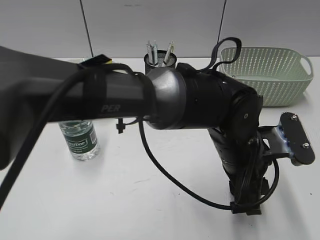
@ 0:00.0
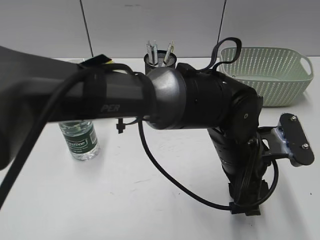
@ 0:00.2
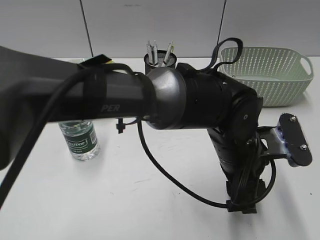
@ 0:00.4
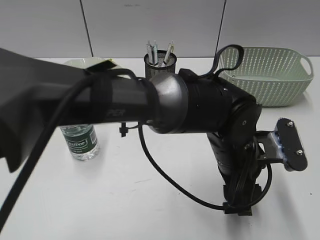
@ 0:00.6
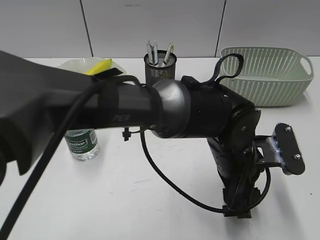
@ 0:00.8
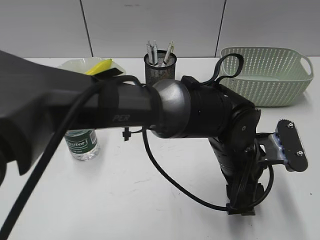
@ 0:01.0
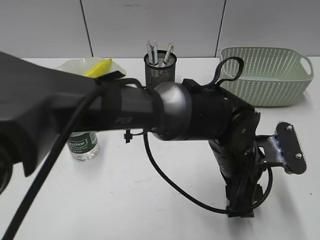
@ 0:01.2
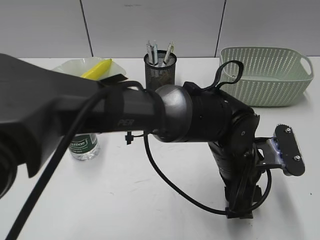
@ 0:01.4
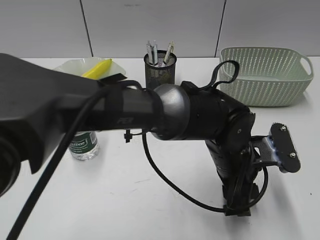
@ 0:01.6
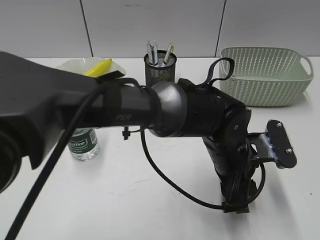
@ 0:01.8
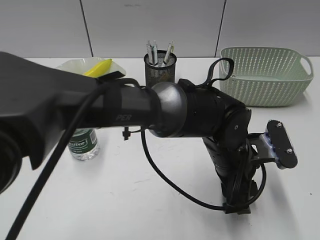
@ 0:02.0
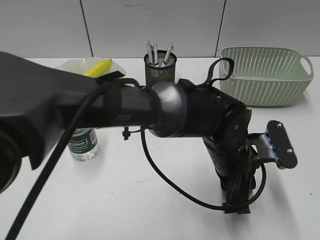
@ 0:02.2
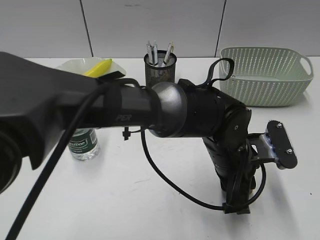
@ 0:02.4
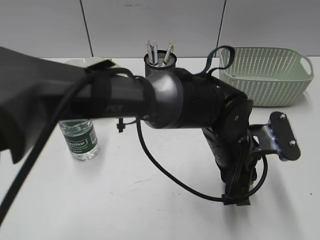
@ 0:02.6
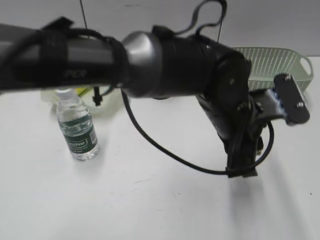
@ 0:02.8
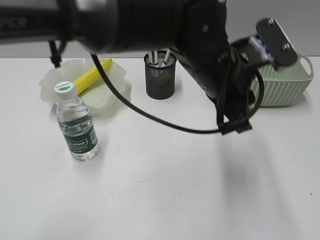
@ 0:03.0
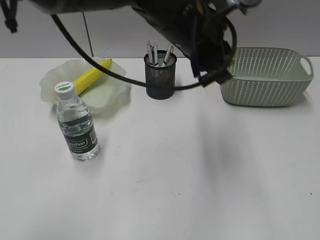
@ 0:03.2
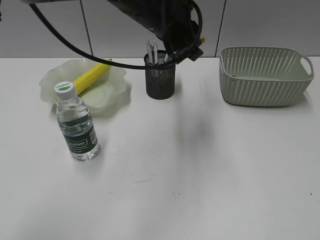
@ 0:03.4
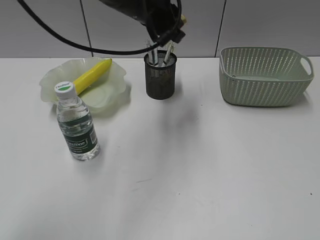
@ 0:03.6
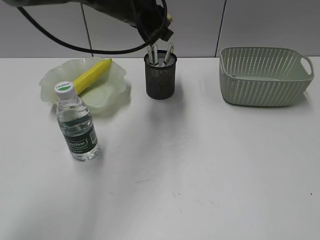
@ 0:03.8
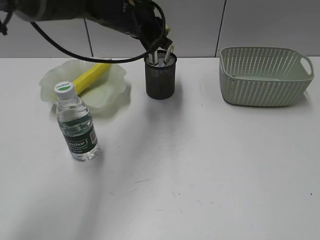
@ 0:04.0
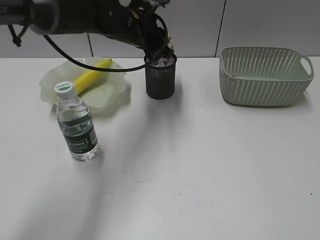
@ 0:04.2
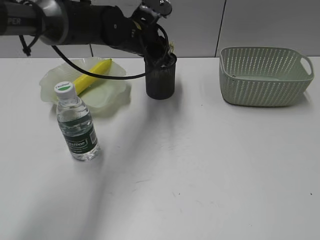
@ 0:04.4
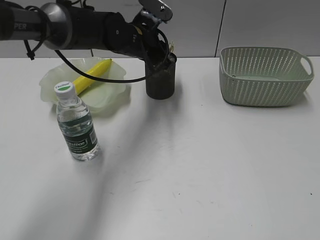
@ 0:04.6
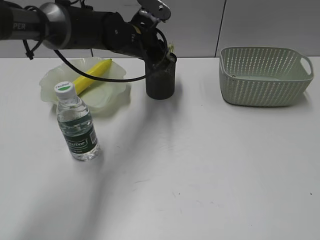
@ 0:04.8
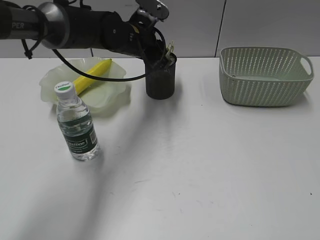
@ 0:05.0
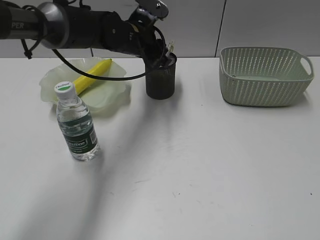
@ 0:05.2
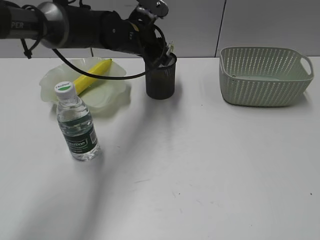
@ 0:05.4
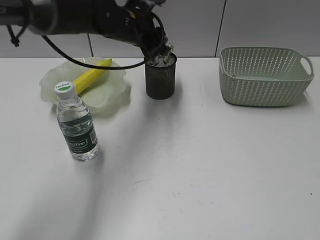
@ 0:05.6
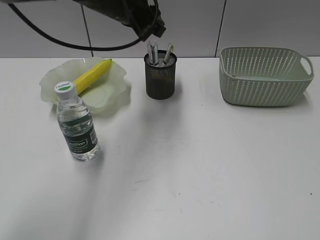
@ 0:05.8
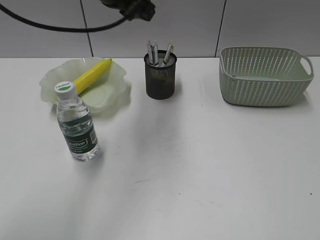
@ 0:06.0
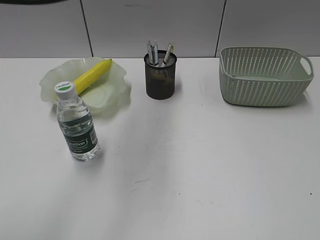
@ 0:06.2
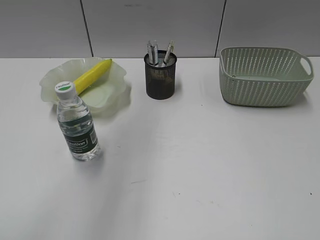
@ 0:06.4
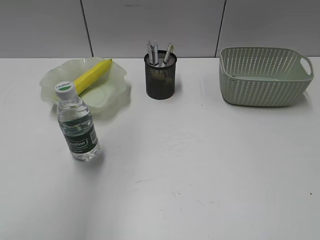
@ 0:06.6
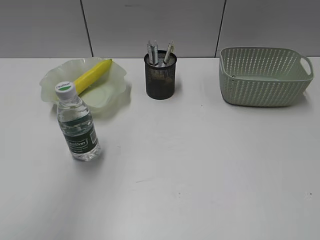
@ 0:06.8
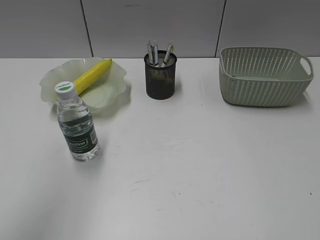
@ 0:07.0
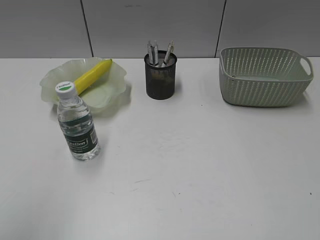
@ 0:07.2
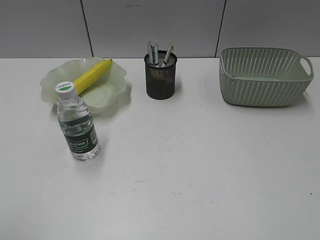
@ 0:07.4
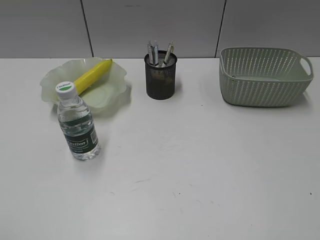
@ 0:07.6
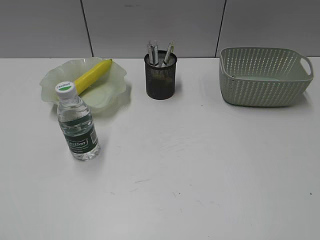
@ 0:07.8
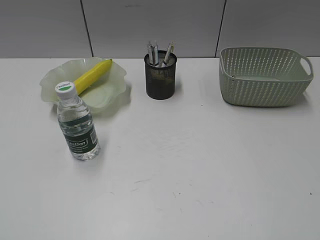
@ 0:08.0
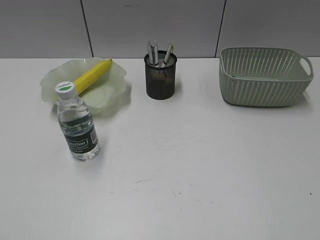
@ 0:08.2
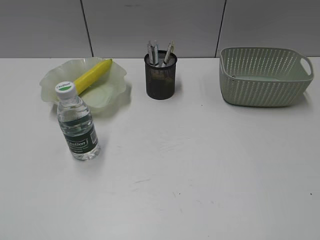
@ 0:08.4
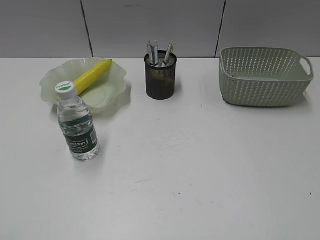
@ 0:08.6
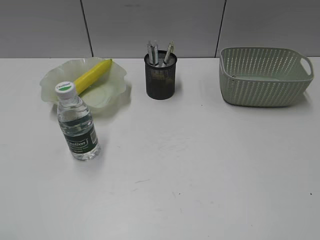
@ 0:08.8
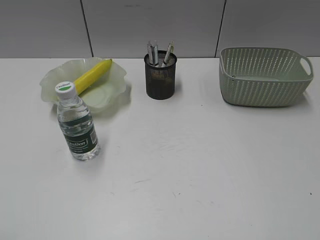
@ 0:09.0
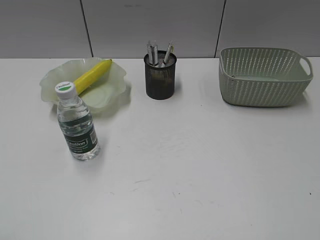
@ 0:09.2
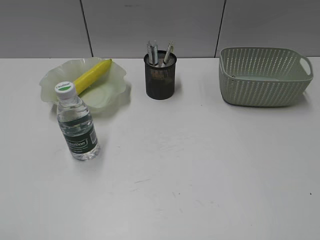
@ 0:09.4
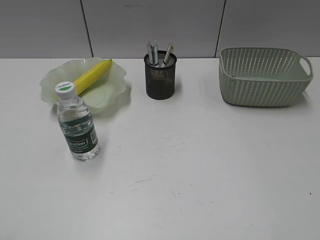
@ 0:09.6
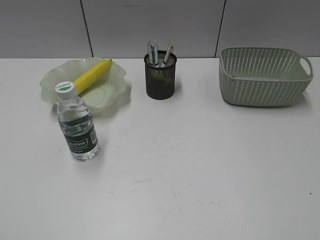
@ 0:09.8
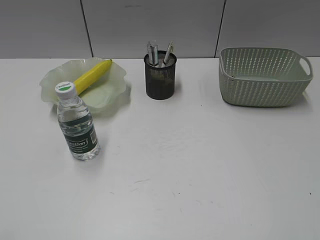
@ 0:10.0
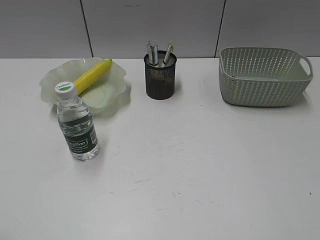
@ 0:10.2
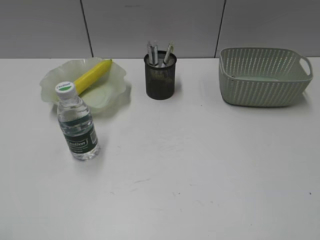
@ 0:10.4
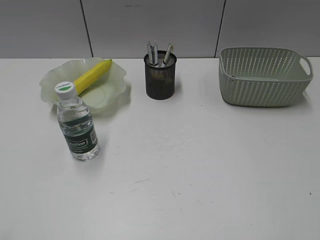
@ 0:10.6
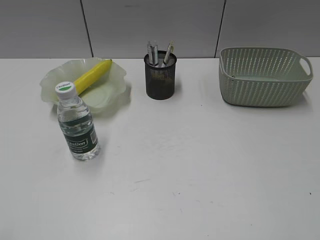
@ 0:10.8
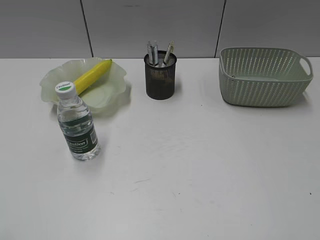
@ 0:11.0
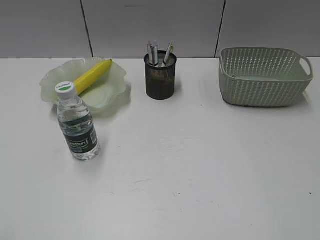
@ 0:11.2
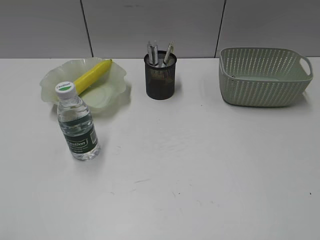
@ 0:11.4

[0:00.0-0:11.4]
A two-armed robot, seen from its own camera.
Step, 0:00.0 to 0:05.6: Place the eraser in pen holder with left gripper.
0:01.4 to 0:02.8: The left gripper shifts roughly 5 cm upward, and closes.
0:02.8 to 0:04.2: The left gripper travels forward and to the left by about 25 cm.
0:04.2 to 0:05.6: The grippers make only small movements.
0:05.6 to 0:07.2: The left gripper travels backward, upward and to the left by some 50 cm.
0:10.0 to 0:11.4: Both grippers stay put.

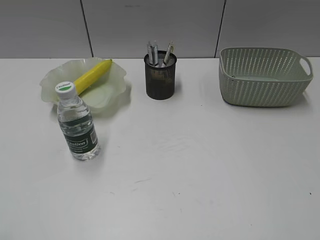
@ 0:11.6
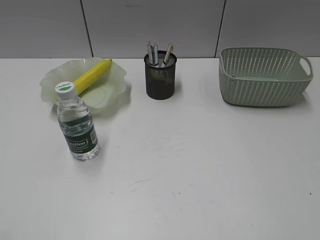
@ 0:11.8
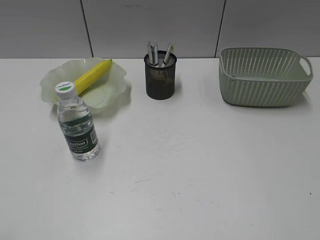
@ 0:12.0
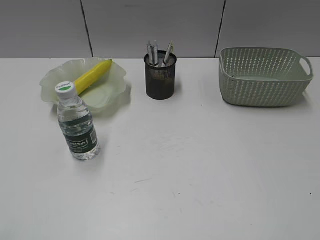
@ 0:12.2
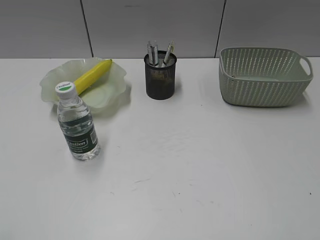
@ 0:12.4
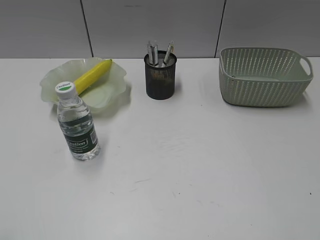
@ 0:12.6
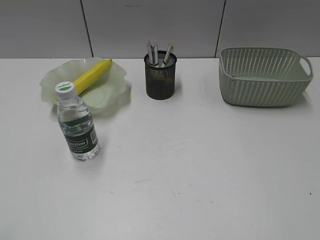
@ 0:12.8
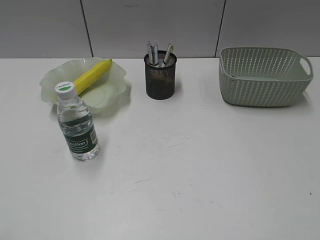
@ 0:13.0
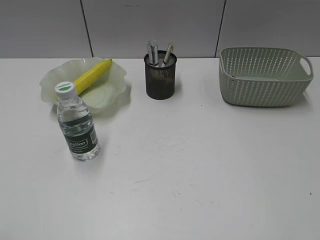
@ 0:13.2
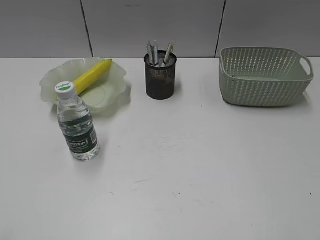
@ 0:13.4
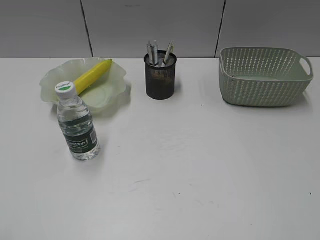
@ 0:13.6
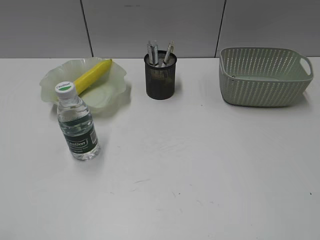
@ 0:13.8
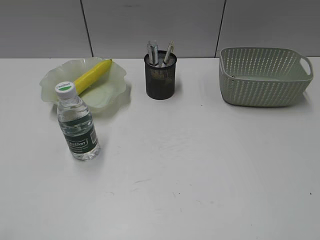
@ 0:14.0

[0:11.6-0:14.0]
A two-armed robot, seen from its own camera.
0:11.6 to 0:14.0: Both grippers stay put.
